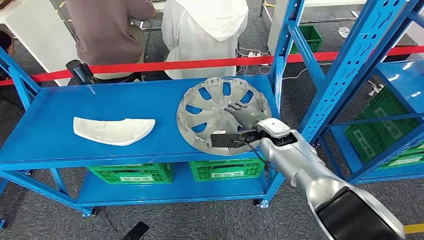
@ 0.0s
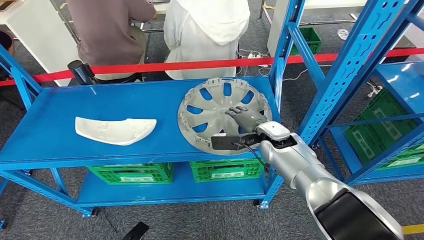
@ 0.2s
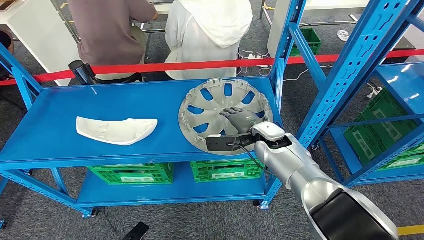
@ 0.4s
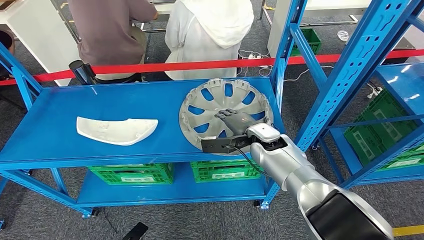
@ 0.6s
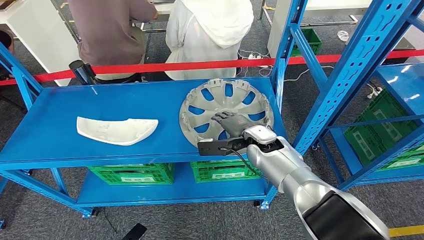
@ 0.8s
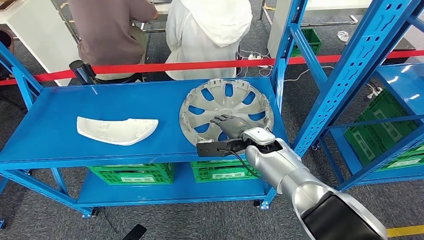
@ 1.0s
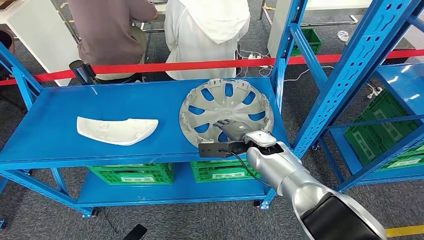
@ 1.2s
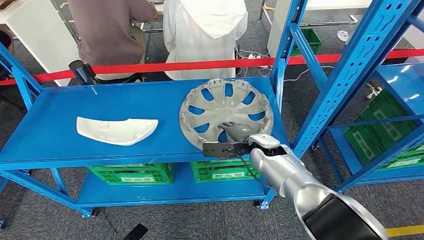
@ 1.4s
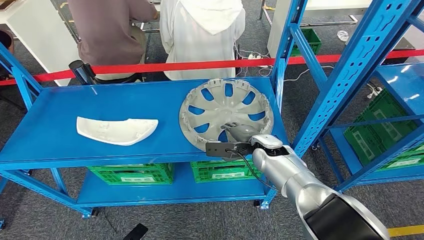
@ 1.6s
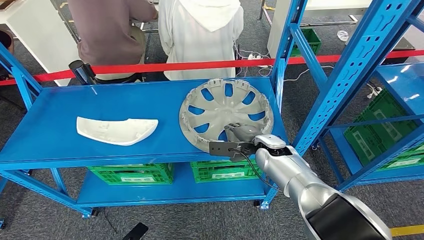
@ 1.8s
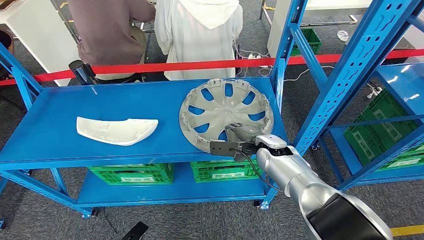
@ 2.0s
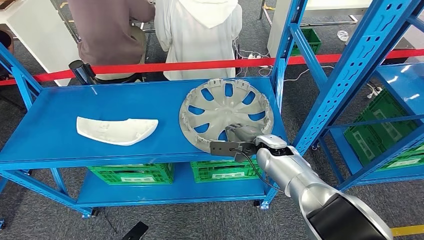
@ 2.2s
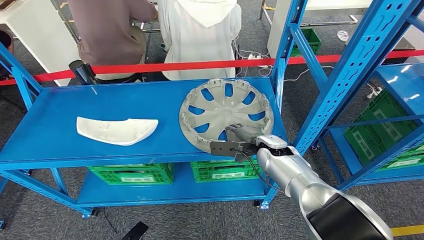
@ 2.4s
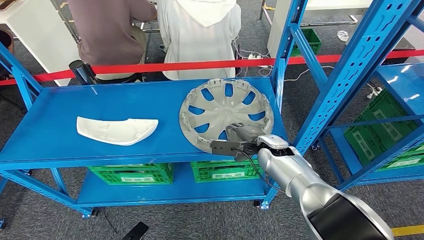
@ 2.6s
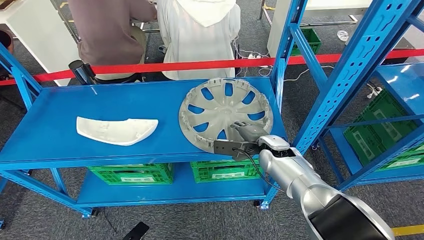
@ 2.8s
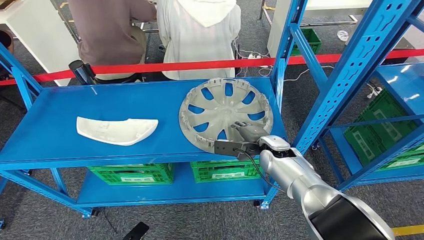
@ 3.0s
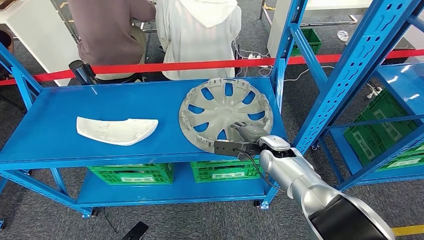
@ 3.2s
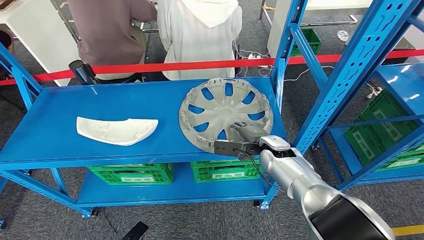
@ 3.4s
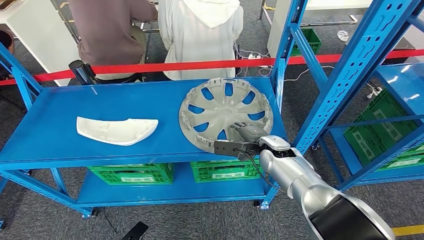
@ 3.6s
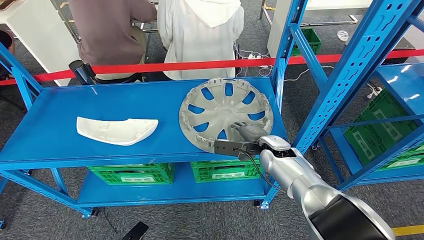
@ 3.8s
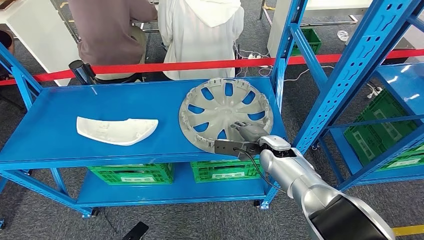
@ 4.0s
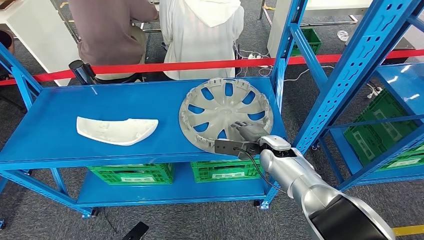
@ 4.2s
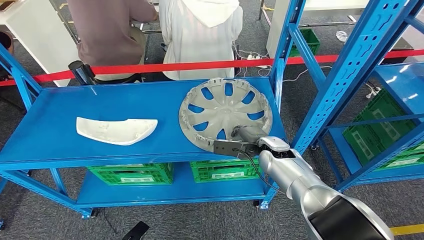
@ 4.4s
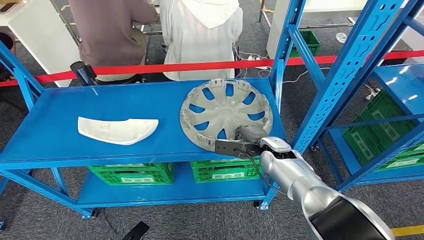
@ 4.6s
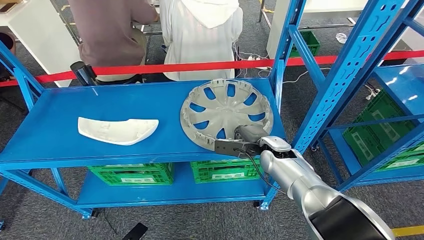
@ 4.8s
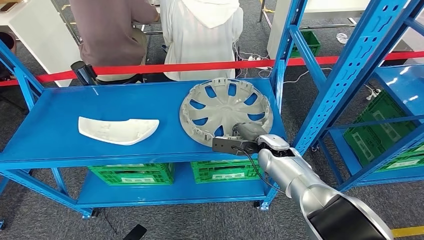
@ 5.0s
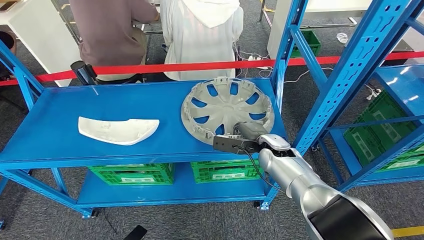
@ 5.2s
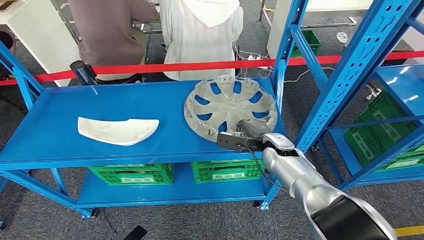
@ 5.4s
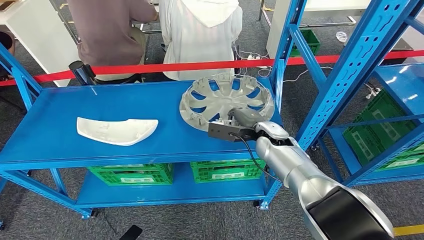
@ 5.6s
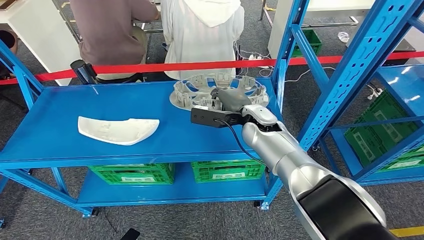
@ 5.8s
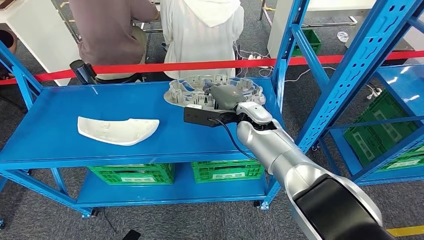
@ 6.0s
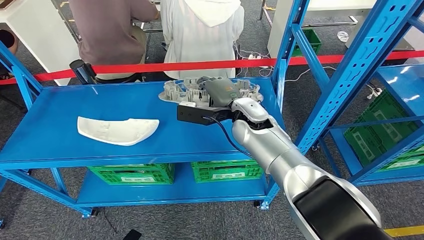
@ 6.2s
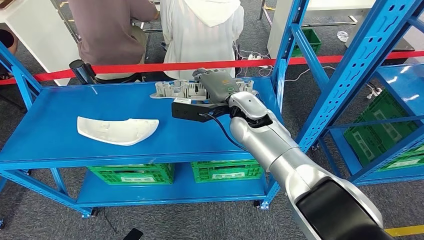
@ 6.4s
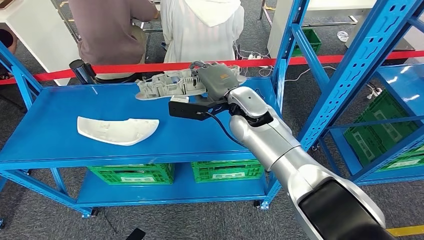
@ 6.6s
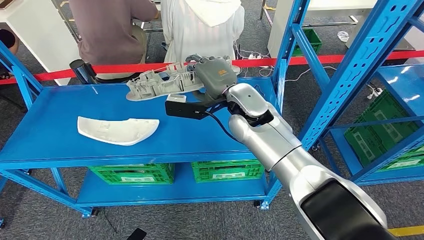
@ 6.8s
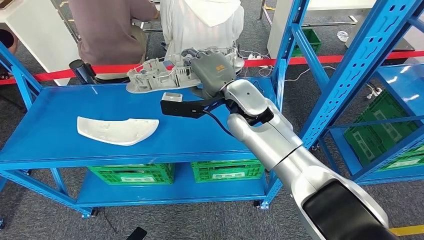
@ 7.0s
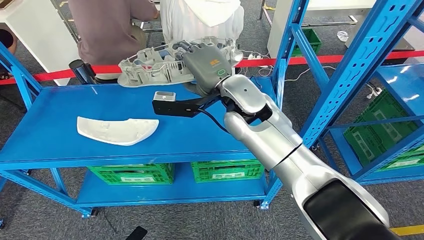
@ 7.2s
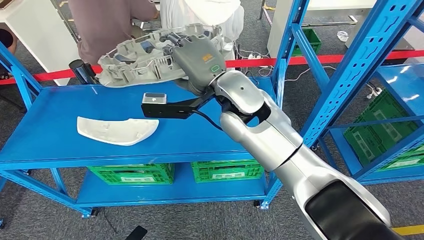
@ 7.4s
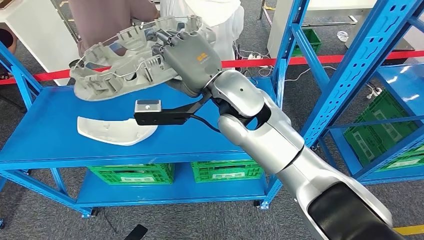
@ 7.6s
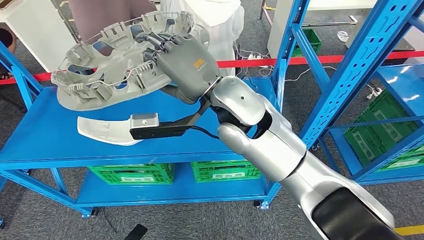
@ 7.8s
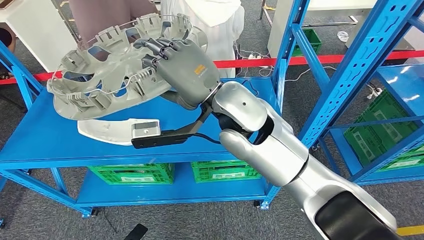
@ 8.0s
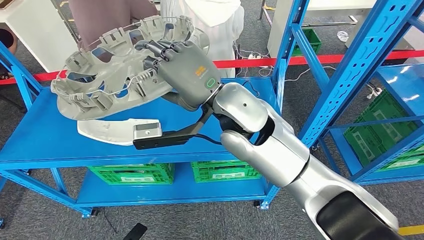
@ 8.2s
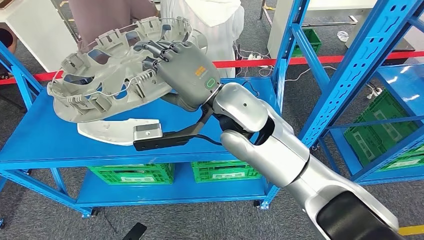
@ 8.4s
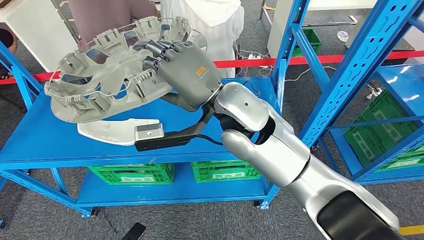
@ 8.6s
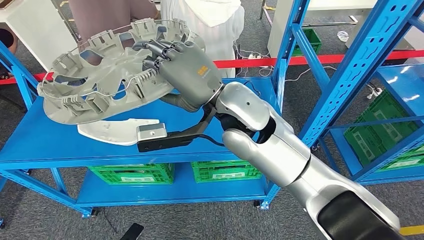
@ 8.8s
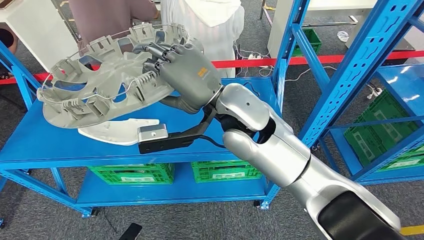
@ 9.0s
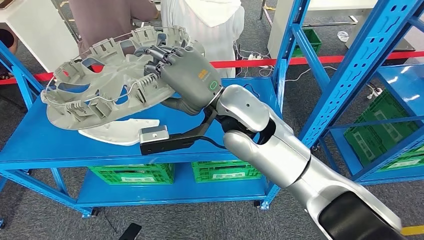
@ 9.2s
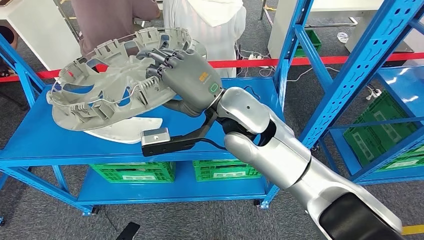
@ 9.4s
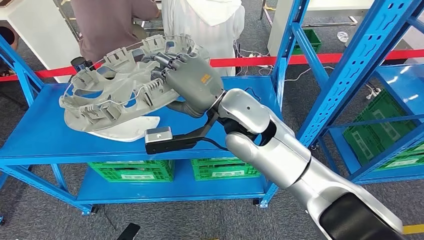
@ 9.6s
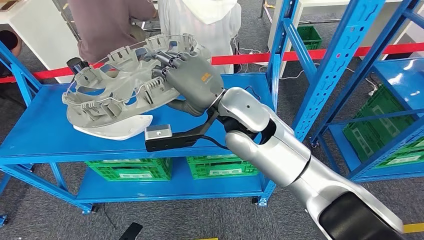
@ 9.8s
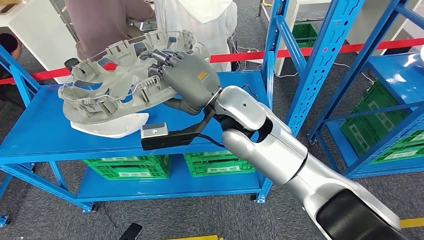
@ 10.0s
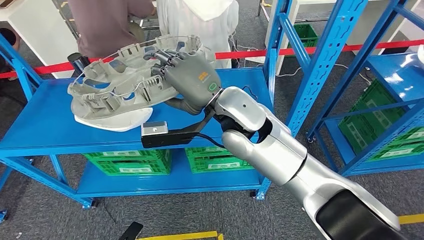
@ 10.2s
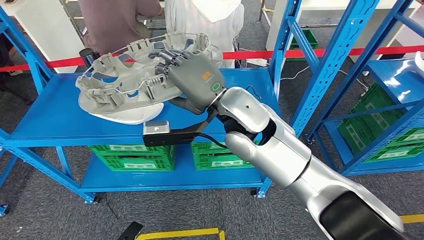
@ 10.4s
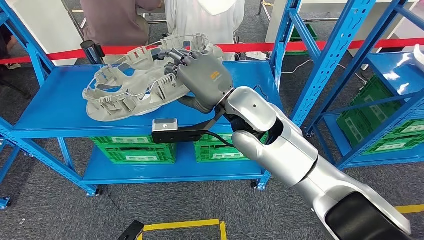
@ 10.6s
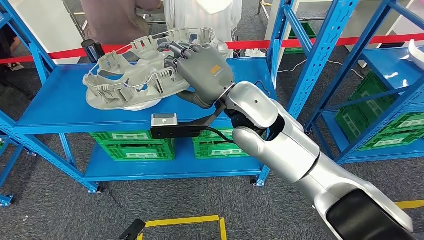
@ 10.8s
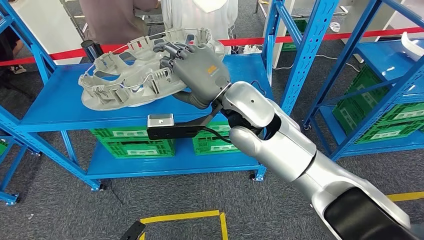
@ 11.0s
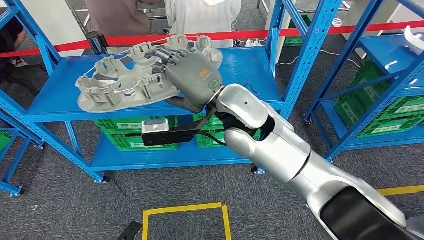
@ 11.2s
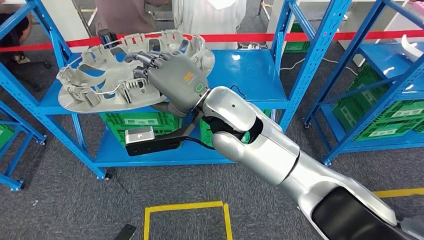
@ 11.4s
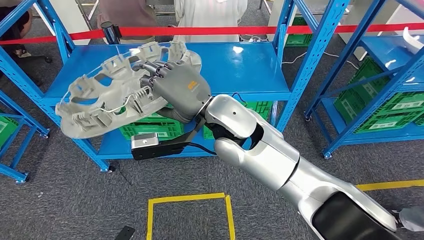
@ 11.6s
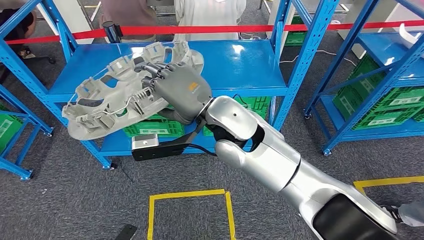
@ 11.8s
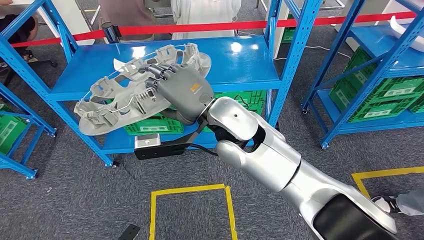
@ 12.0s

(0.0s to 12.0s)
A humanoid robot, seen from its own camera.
Step, 0.0s - 8.6s: Pick up the large material from the shelf.
1.6s - 3.0s: The hands stay close to where they were, moving slightly.
3.0s - 4.4s: The two hands keep their place.
4.4s - 6.0s: The right hand is displaced upward and to the left by some 15 cm.

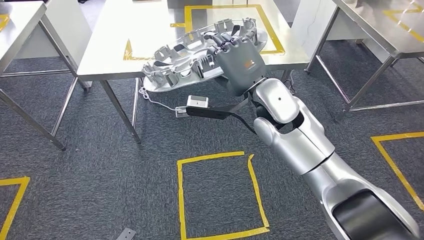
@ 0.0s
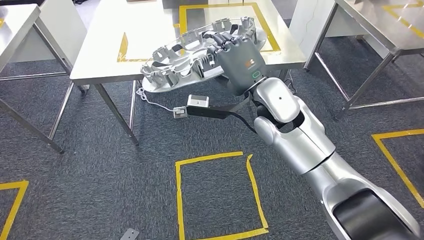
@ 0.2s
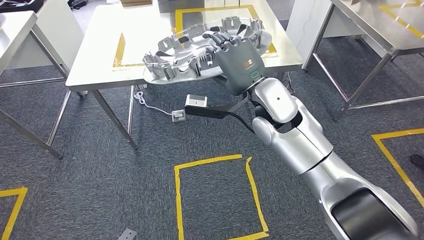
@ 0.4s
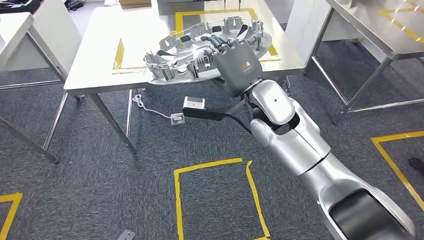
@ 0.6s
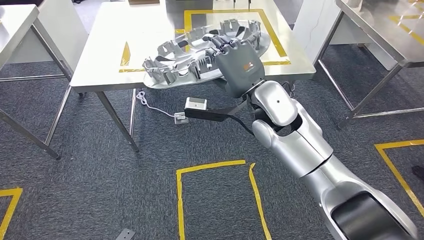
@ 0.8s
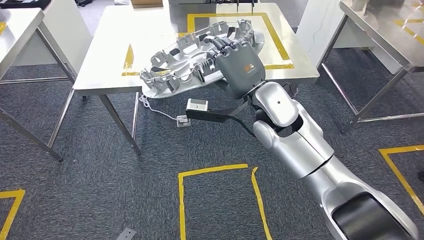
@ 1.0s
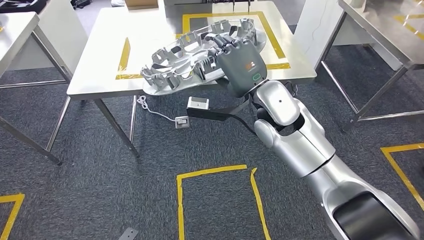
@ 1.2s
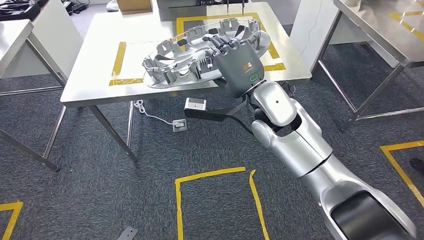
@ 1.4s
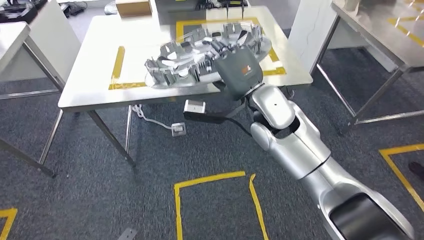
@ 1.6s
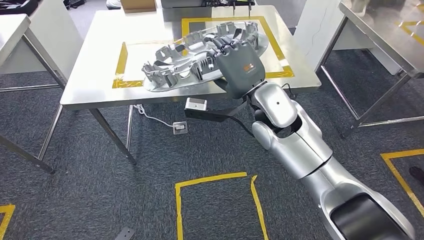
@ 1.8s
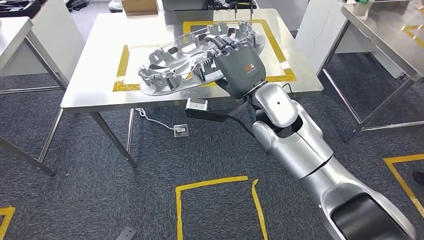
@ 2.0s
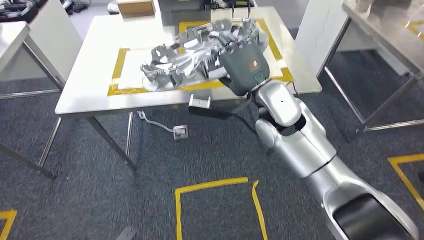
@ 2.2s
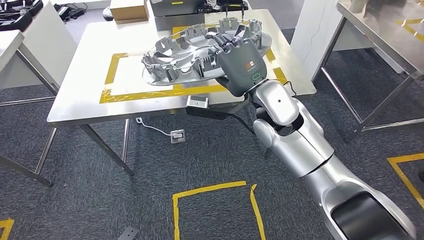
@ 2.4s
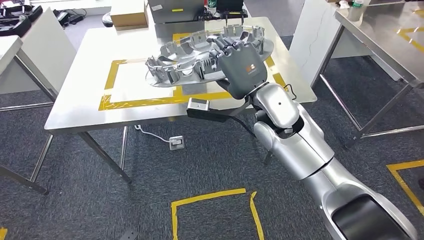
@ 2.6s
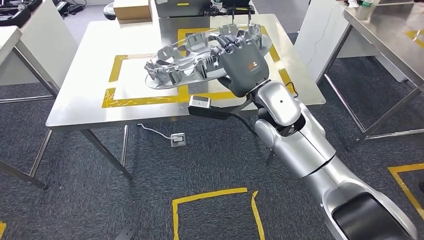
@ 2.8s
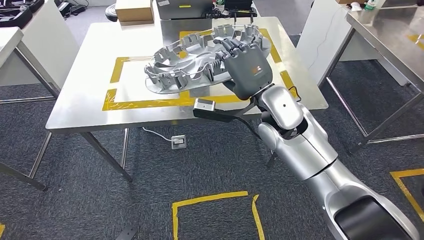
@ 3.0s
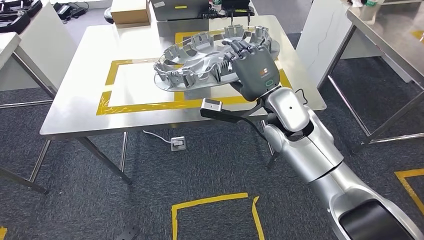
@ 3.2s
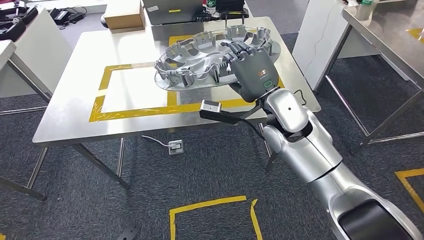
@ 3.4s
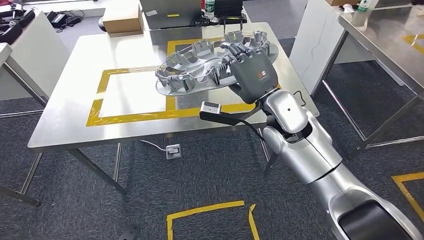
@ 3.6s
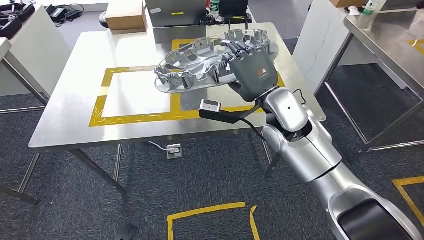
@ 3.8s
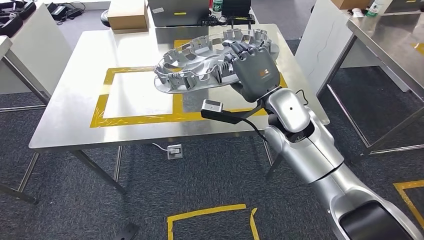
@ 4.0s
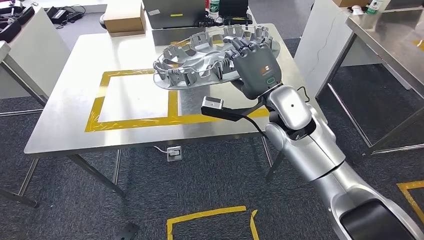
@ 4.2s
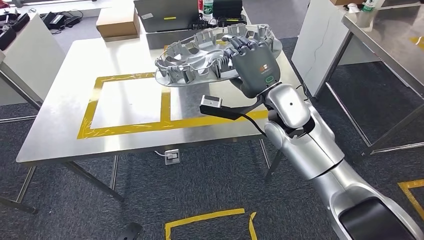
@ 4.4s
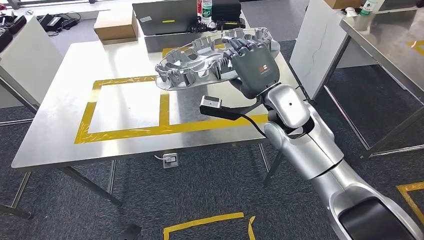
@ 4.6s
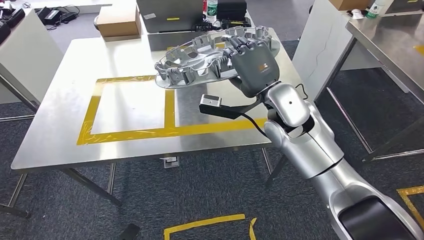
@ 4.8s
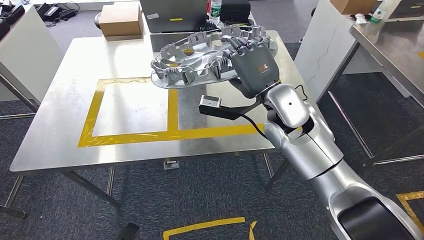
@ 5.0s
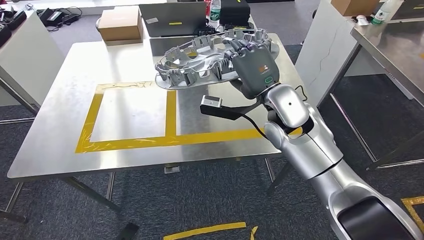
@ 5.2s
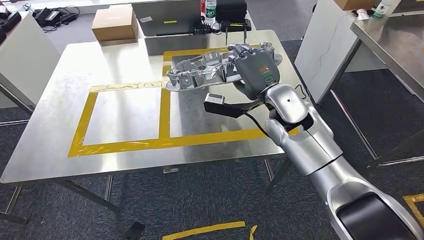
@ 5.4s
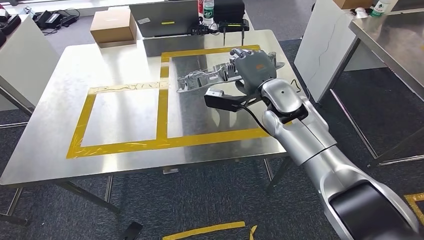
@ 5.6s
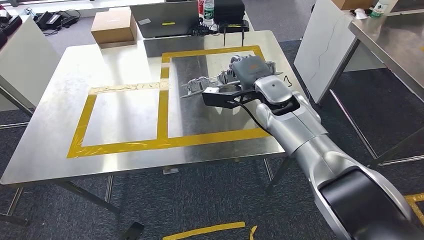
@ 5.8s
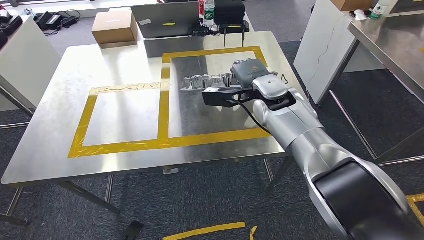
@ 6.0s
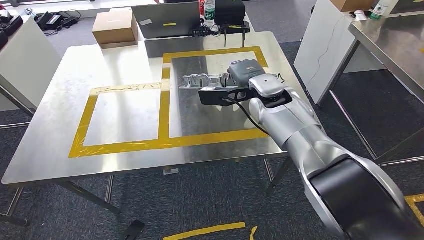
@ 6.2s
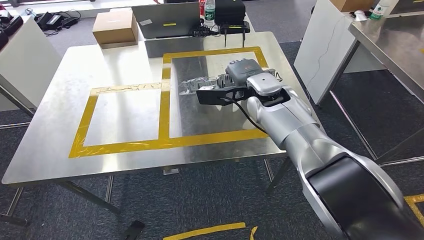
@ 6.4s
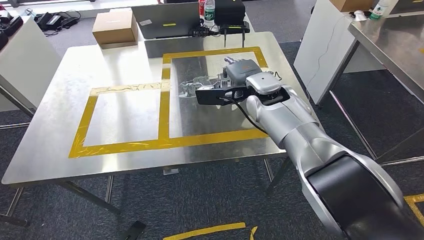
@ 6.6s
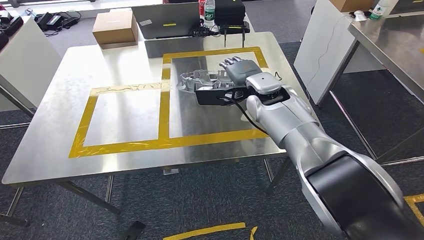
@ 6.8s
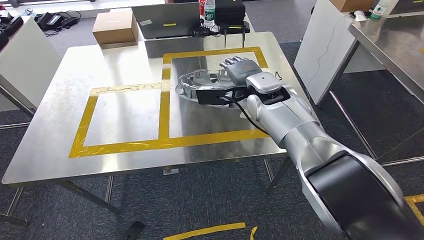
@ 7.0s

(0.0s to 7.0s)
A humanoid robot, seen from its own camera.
Step, 0.0s - 3.4s: Move the large material to the workbench.
